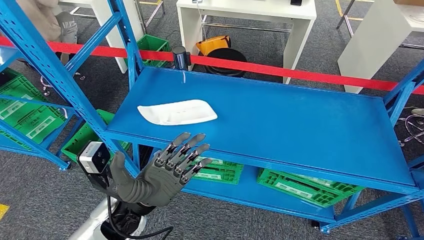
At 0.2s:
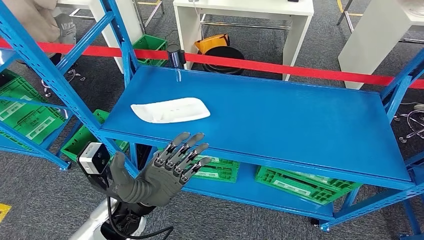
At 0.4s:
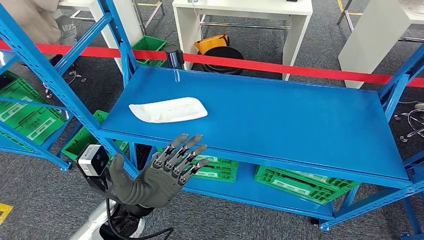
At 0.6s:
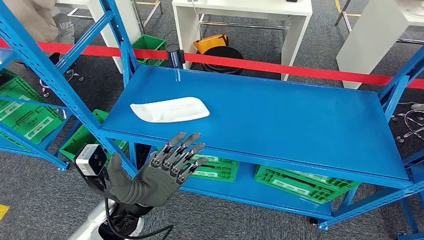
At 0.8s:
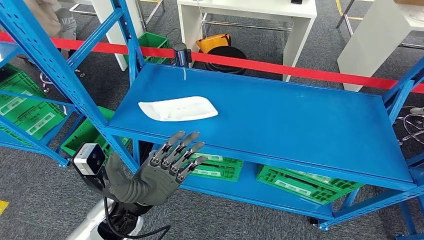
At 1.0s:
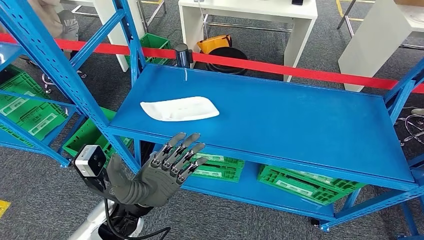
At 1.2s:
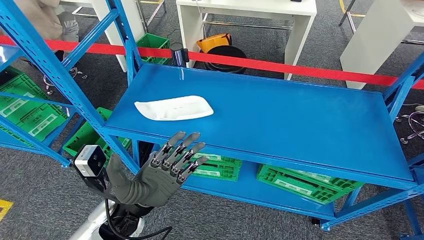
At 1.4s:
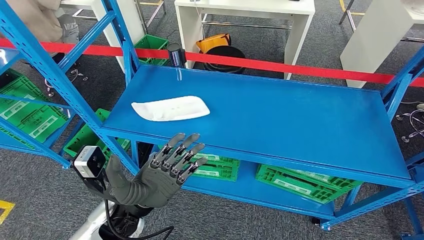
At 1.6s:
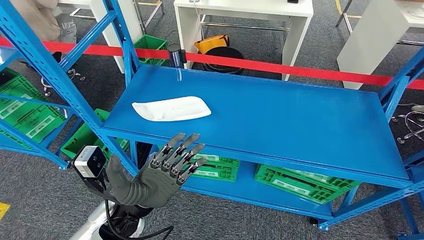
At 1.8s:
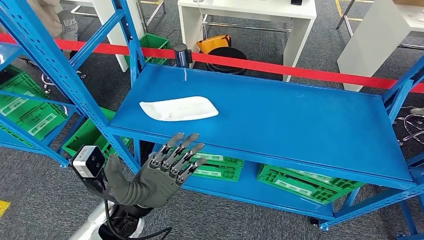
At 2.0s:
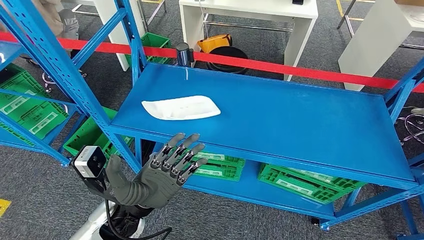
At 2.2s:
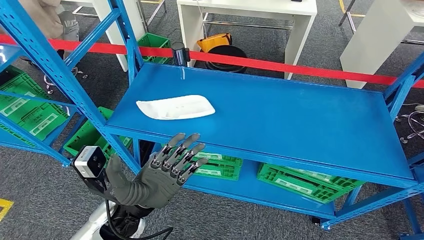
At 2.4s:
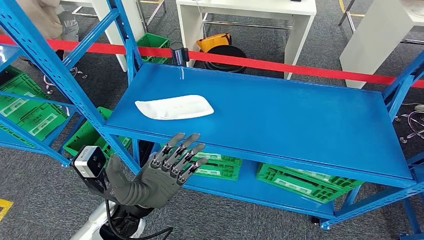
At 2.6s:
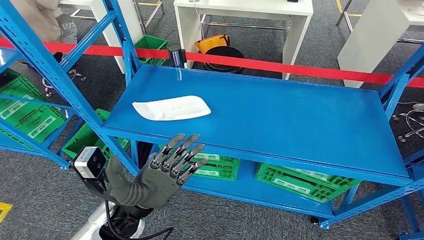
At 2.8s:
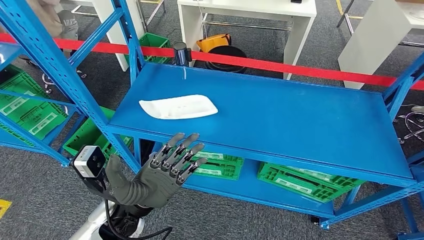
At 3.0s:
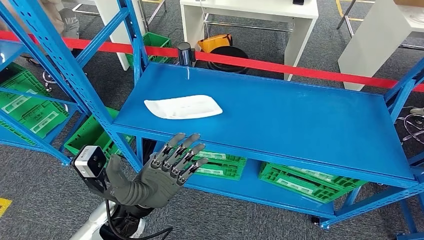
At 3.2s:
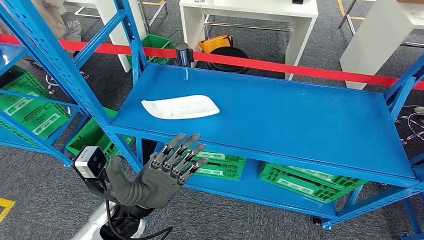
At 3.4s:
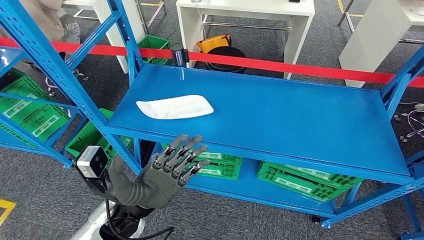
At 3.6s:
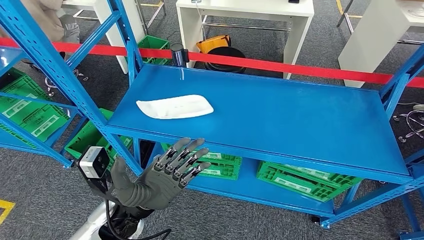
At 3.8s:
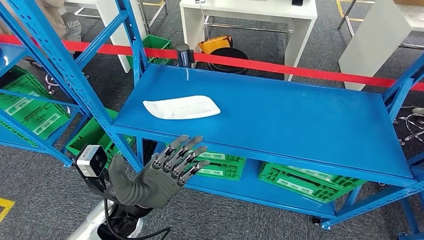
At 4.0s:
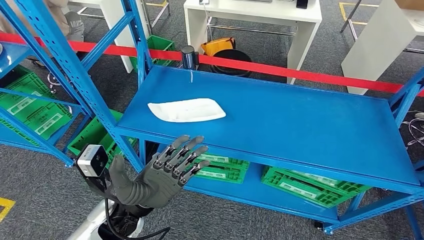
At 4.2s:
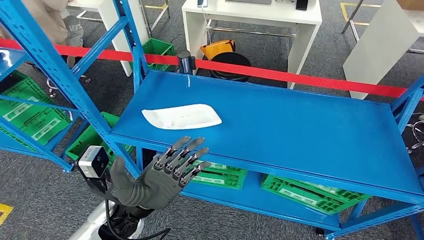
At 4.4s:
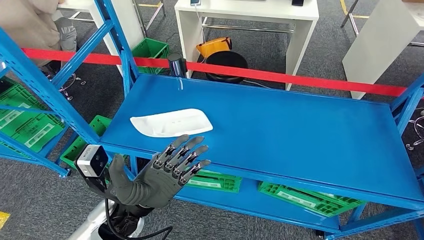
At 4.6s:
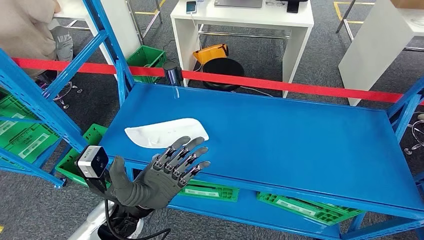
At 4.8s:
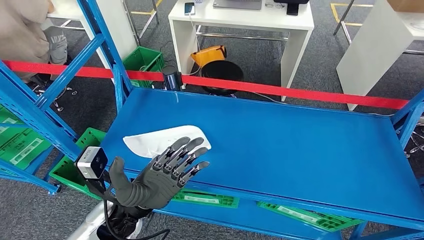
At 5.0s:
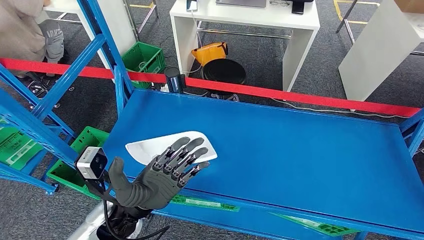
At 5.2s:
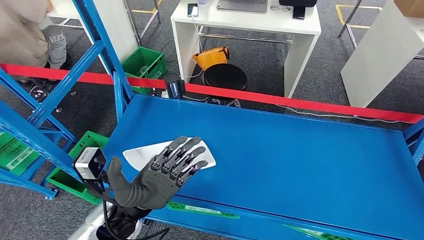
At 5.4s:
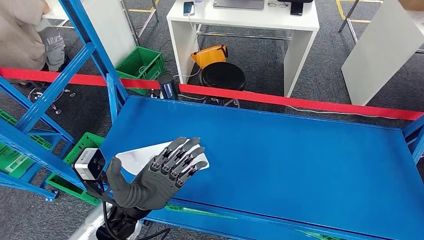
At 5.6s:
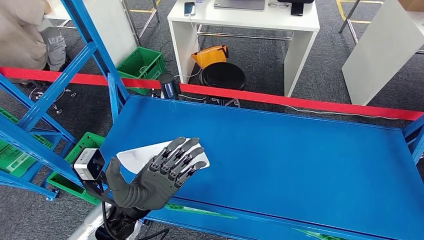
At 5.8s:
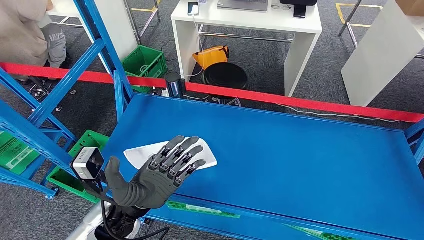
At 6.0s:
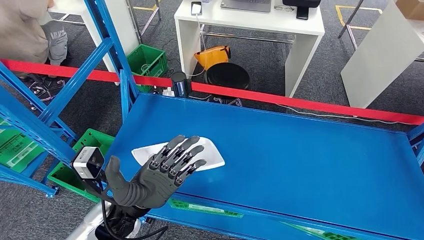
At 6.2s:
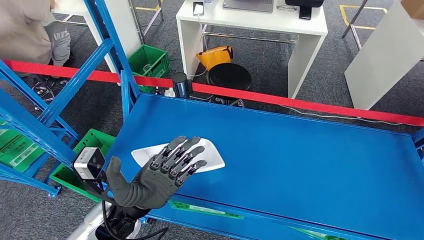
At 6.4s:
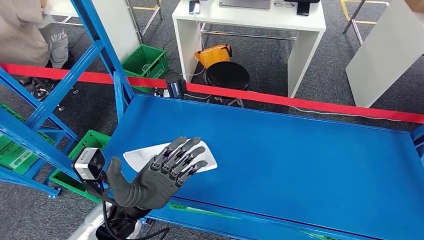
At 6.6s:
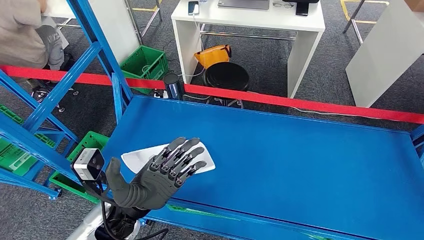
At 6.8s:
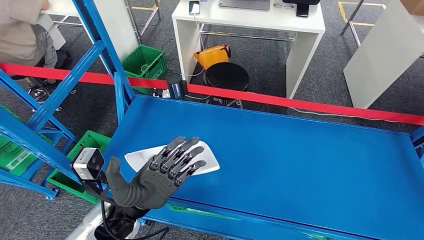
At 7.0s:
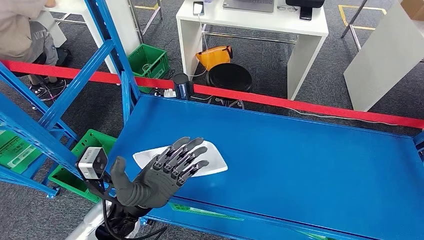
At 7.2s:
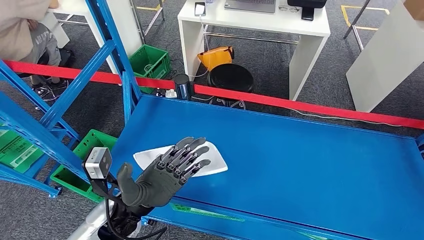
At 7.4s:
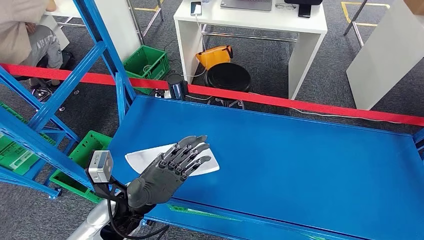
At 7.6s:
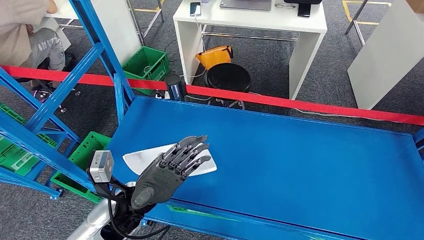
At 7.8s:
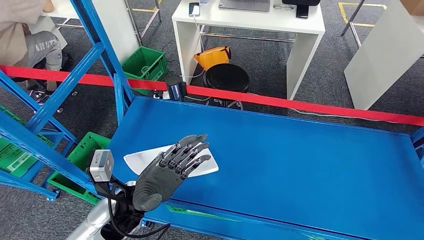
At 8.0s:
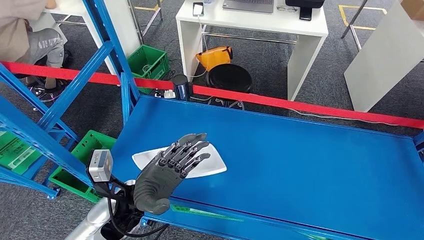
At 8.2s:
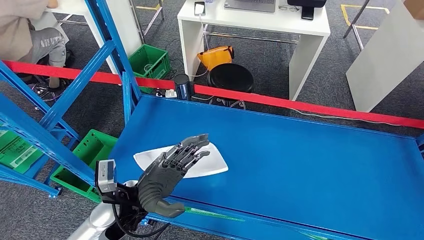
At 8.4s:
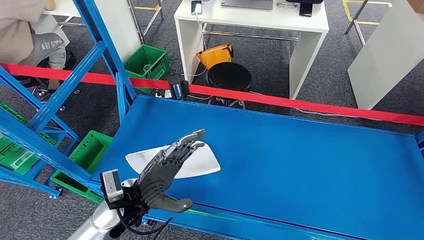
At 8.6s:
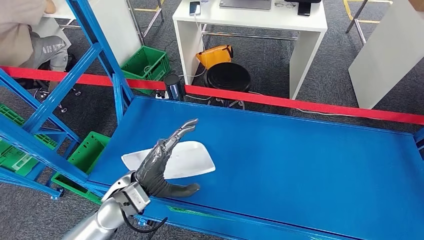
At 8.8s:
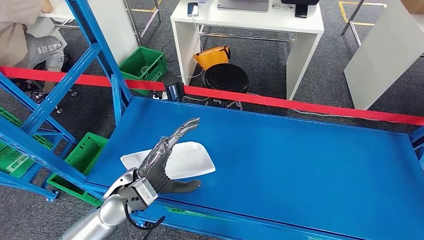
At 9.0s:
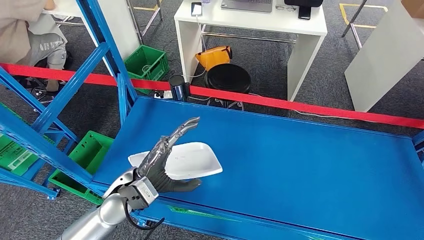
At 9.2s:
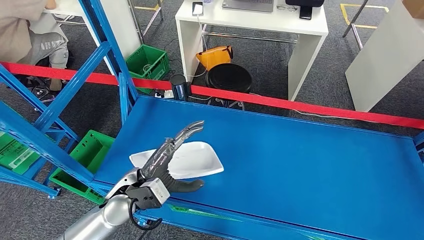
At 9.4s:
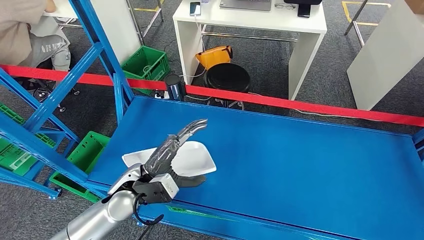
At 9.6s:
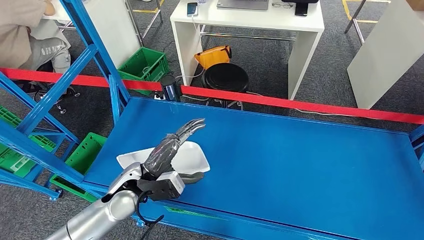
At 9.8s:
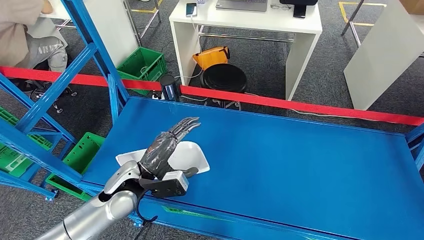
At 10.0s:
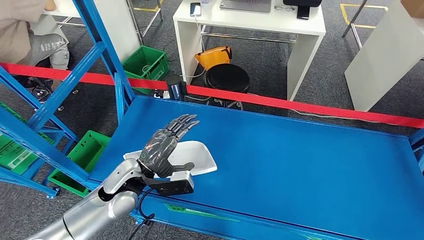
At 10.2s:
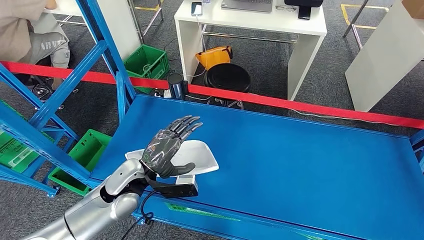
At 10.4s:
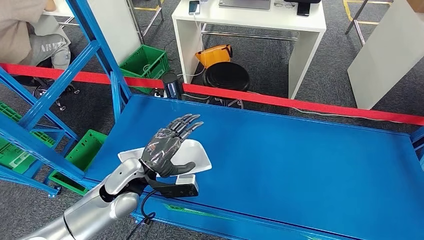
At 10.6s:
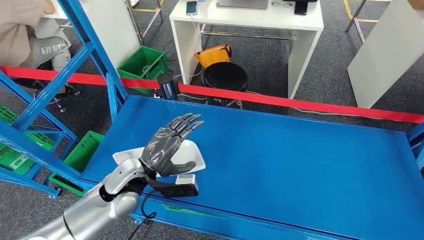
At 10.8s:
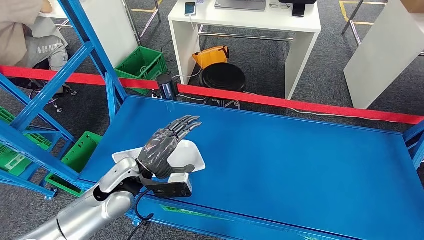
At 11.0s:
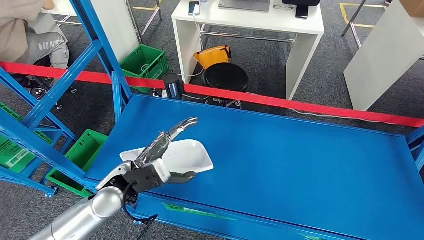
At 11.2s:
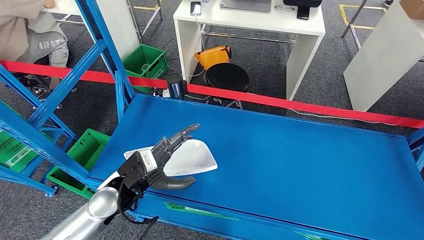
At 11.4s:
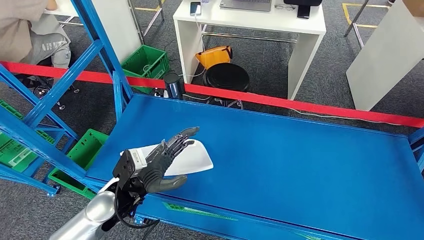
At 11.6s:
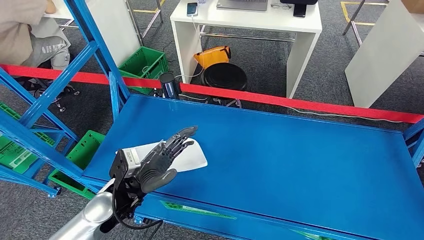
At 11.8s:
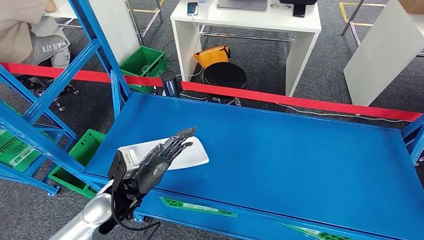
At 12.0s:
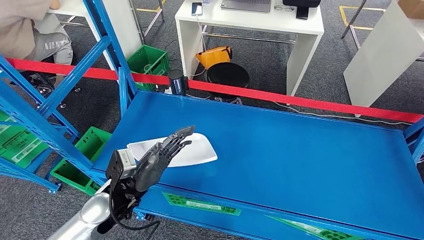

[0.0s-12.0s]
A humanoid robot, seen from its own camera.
0.0s to 1.6s: Both hands stay put.

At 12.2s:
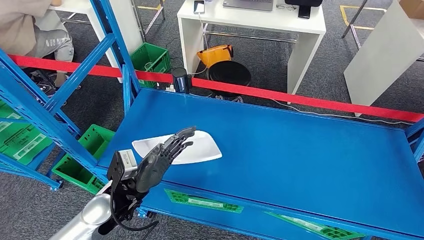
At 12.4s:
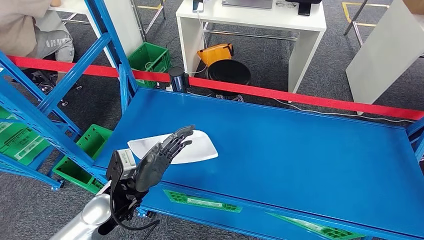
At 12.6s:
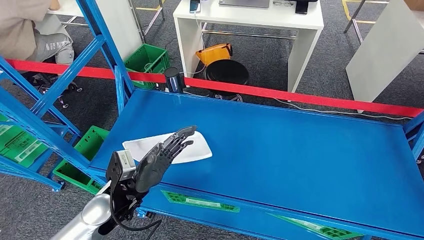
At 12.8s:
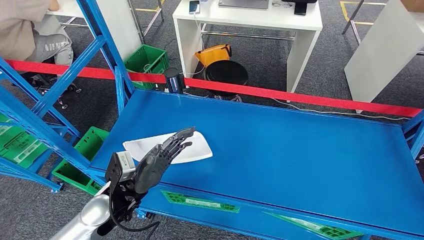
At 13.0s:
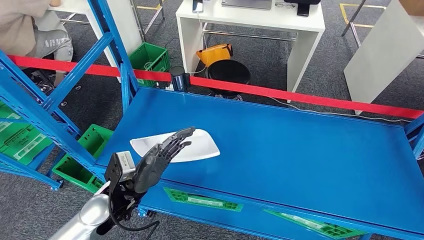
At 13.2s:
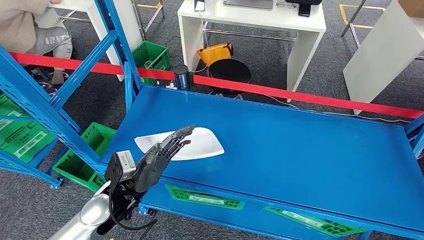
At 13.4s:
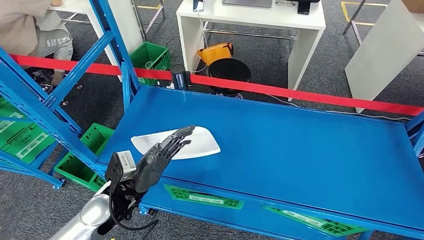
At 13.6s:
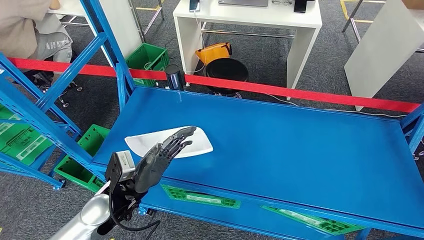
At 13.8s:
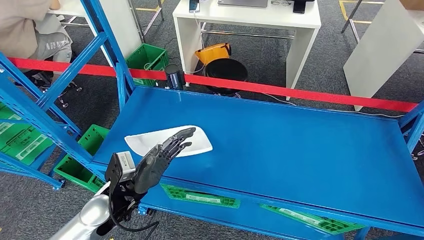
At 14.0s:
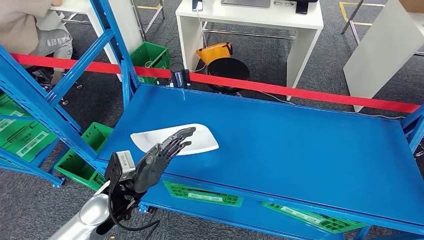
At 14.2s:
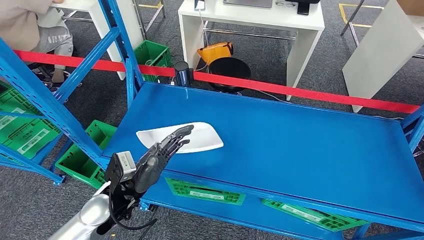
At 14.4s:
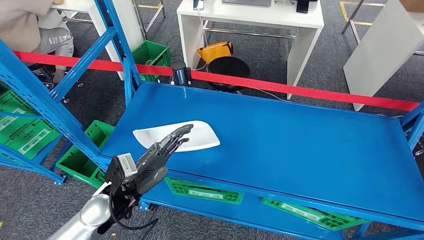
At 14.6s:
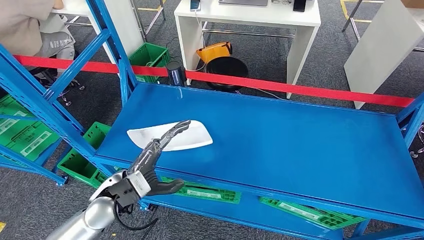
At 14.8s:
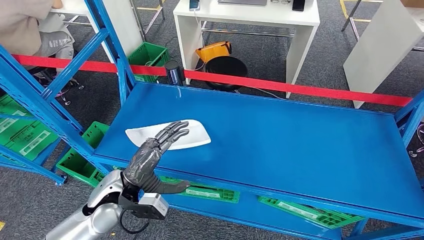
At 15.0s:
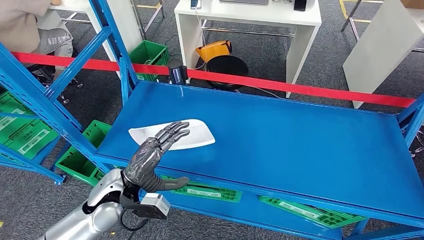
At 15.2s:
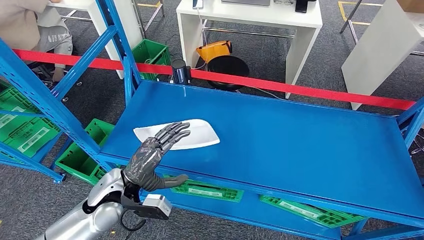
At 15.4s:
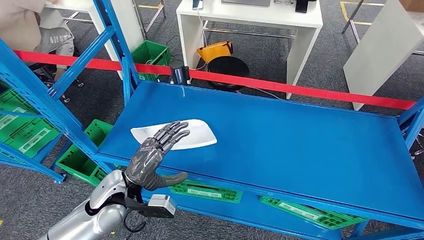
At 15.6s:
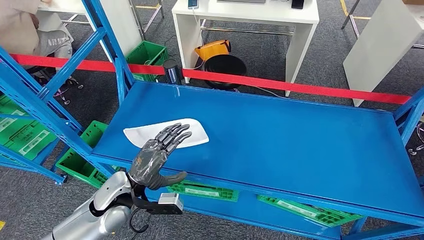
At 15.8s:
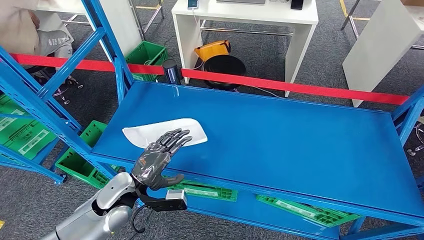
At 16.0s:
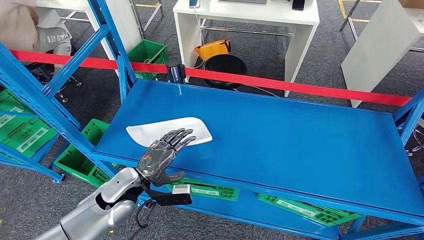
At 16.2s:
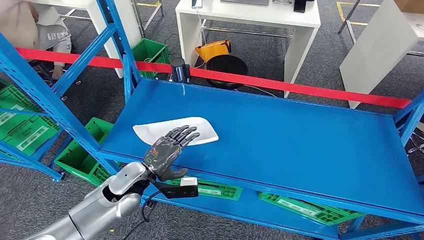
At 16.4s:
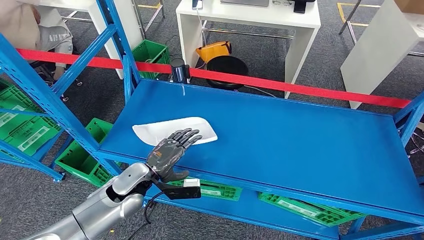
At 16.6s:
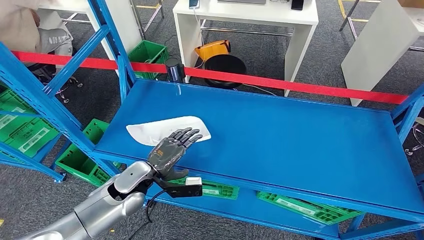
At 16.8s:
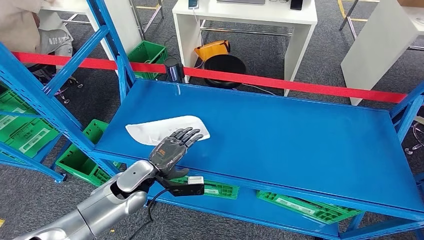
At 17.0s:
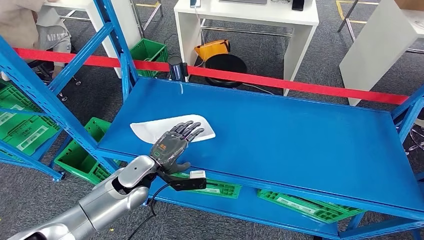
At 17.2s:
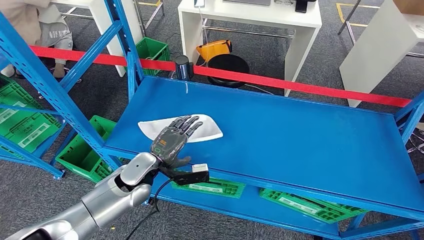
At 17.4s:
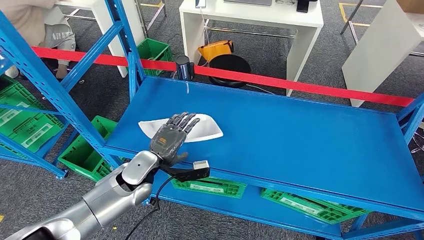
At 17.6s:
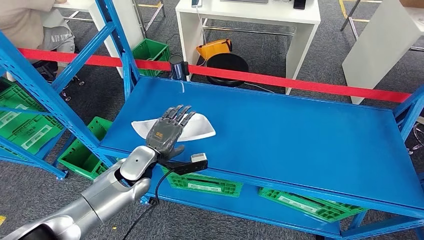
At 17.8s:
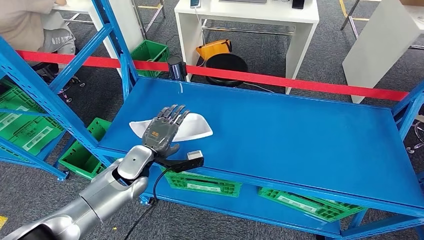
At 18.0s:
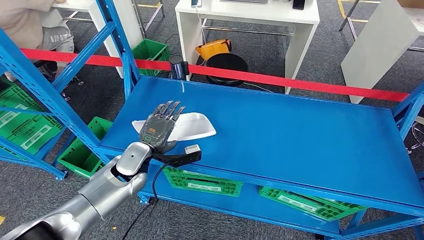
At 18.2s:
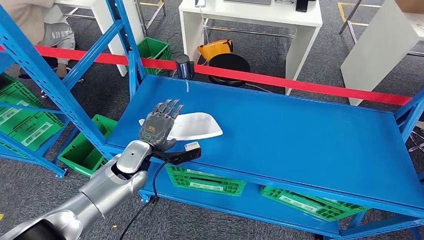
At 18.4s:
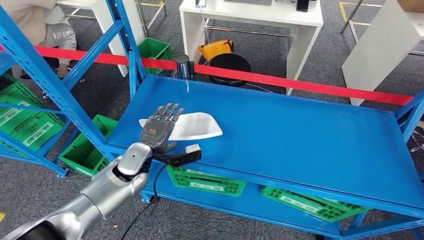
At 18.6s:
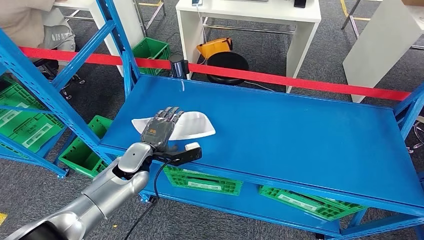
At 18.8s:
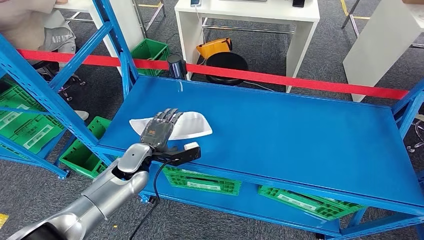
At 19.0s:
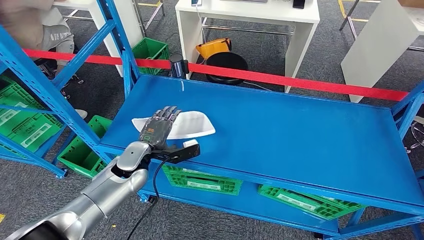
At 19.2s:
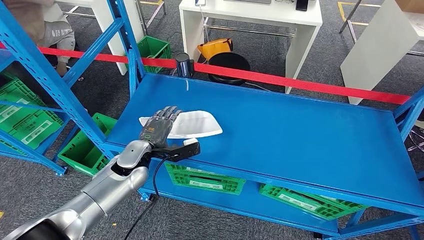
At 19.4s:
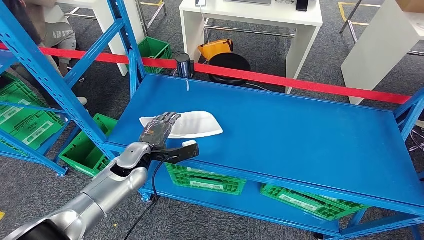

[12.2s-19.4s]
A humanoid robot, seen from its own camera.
15.0s to 16.6s: The left hand ends up some 5 cm from where it was.
